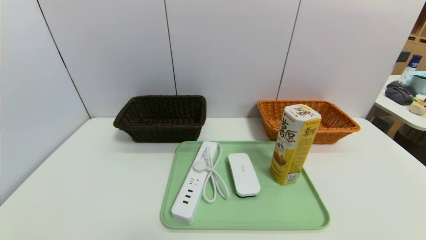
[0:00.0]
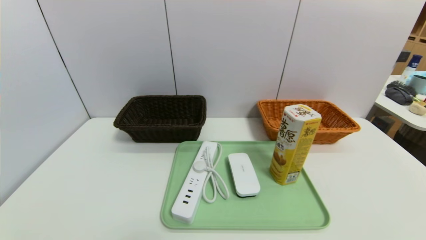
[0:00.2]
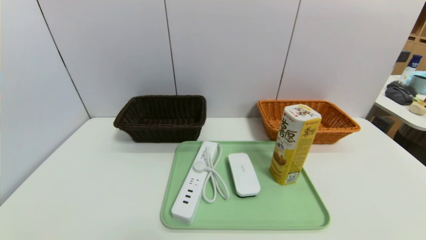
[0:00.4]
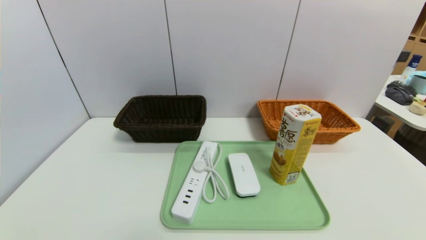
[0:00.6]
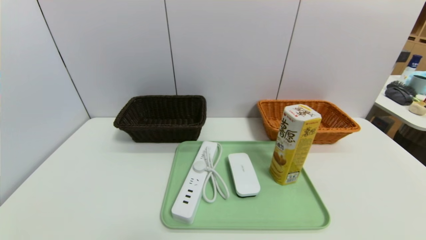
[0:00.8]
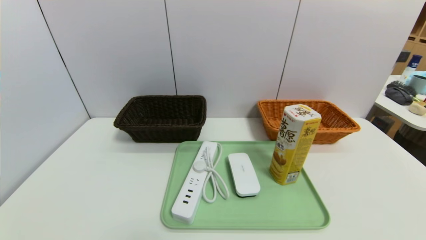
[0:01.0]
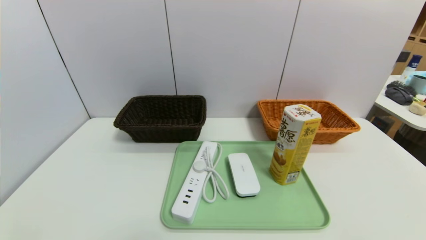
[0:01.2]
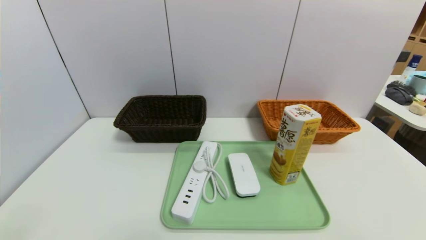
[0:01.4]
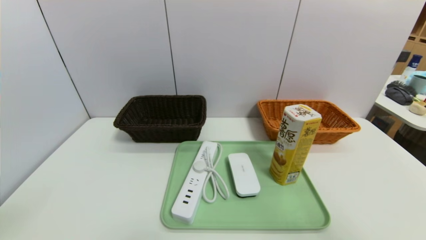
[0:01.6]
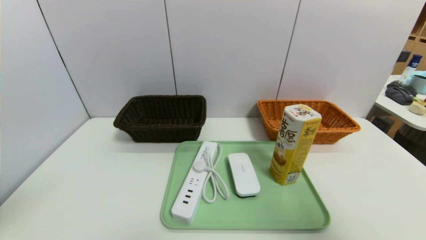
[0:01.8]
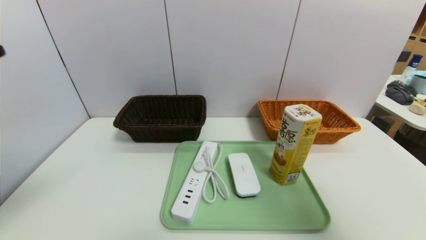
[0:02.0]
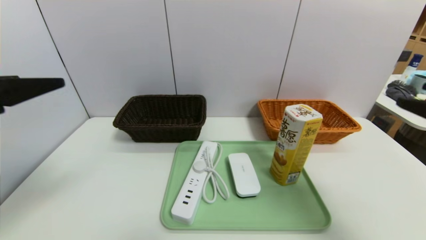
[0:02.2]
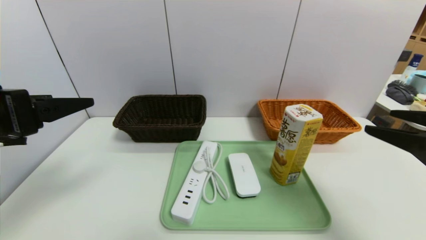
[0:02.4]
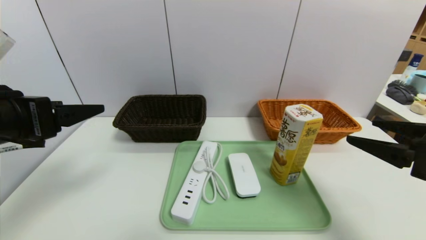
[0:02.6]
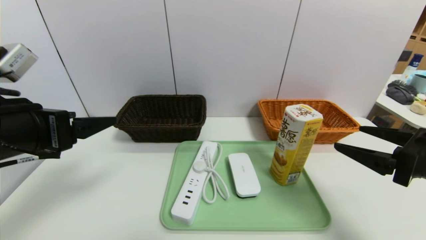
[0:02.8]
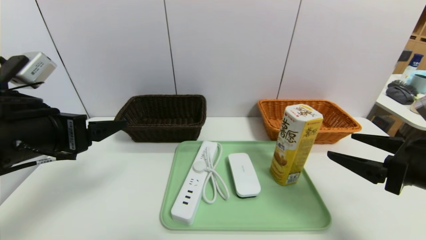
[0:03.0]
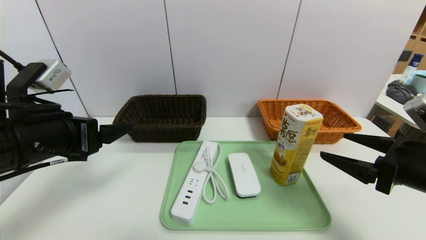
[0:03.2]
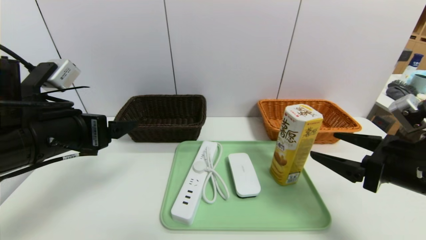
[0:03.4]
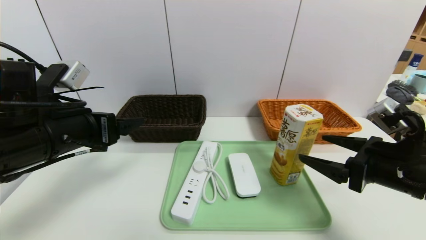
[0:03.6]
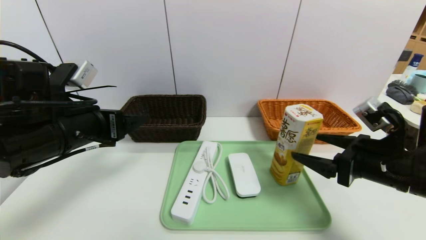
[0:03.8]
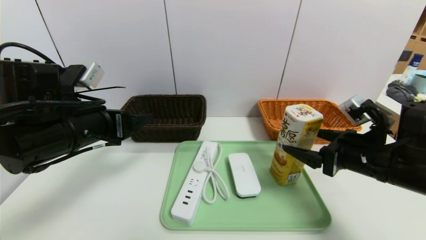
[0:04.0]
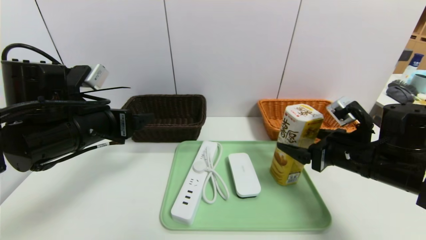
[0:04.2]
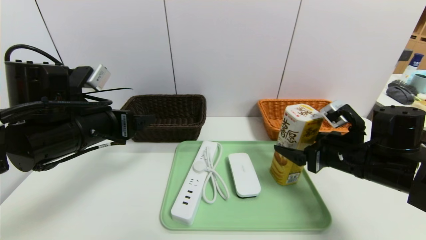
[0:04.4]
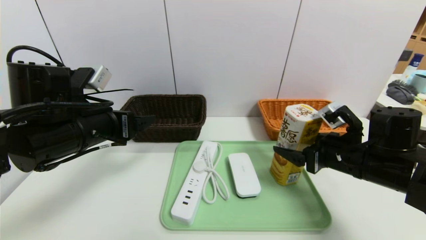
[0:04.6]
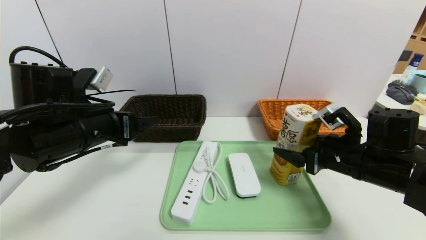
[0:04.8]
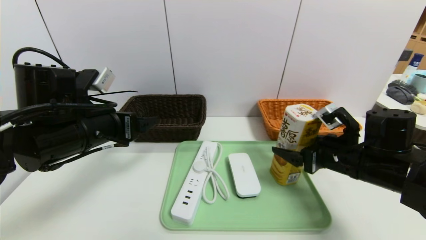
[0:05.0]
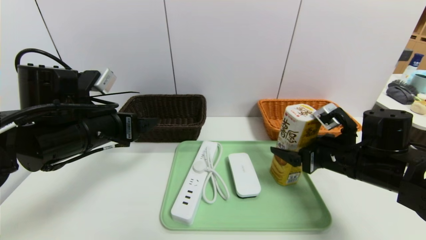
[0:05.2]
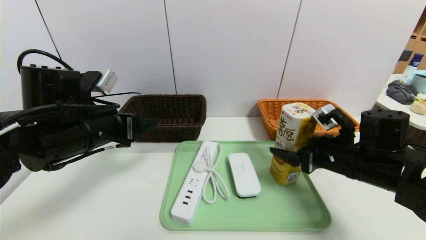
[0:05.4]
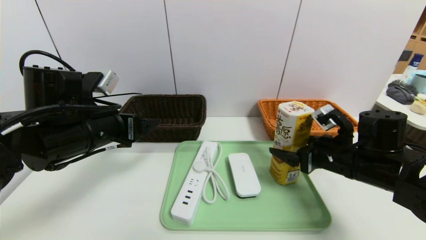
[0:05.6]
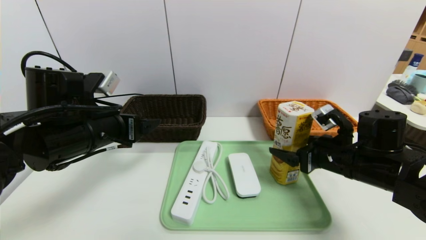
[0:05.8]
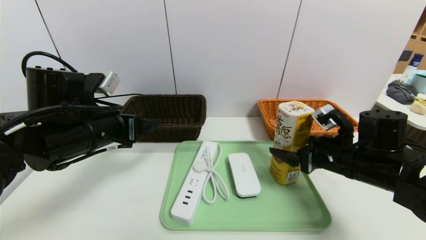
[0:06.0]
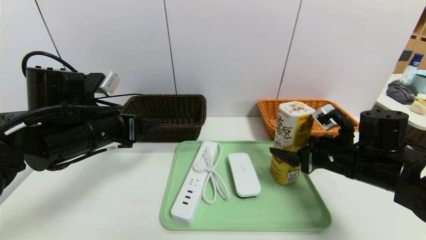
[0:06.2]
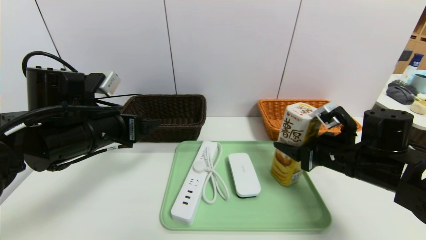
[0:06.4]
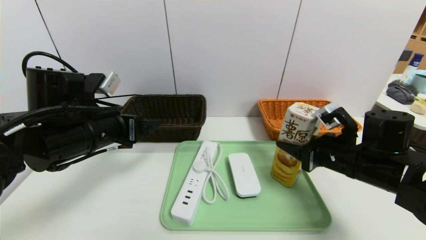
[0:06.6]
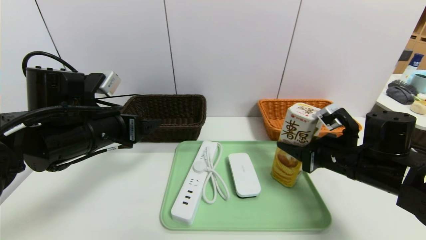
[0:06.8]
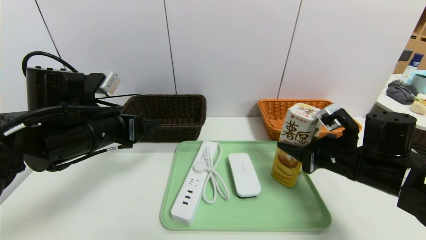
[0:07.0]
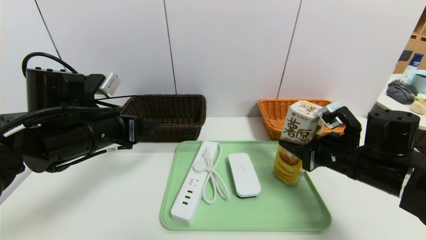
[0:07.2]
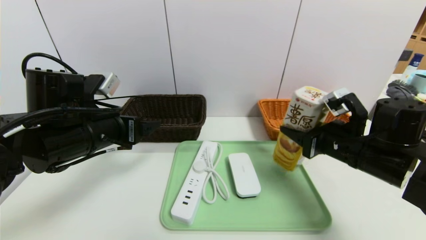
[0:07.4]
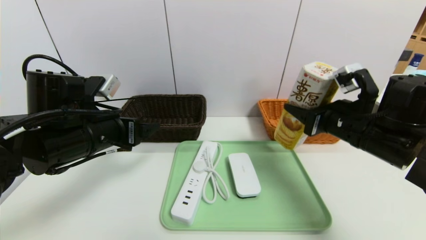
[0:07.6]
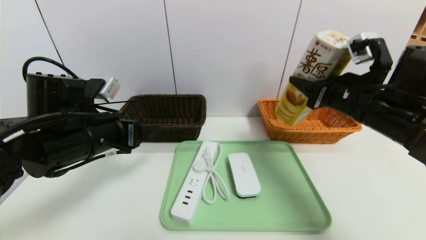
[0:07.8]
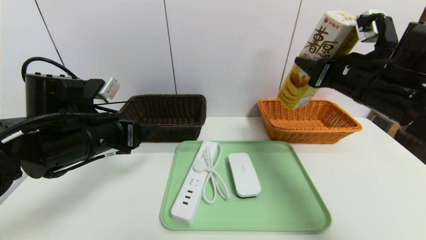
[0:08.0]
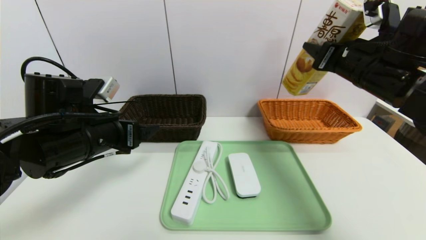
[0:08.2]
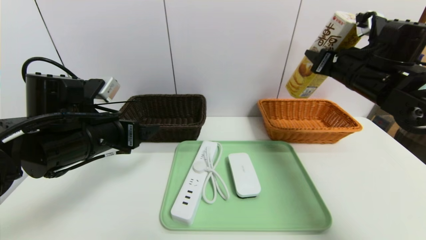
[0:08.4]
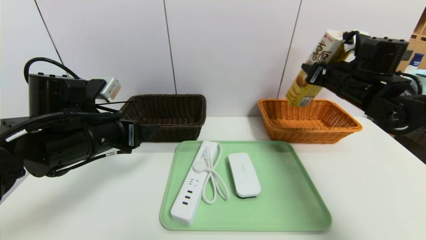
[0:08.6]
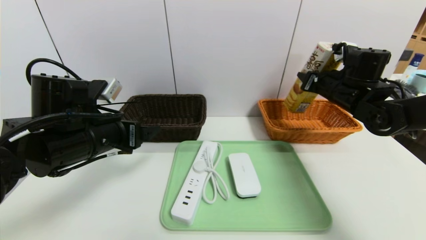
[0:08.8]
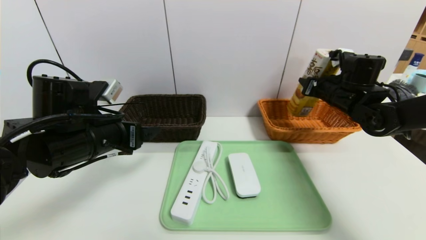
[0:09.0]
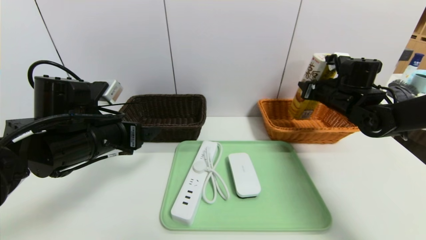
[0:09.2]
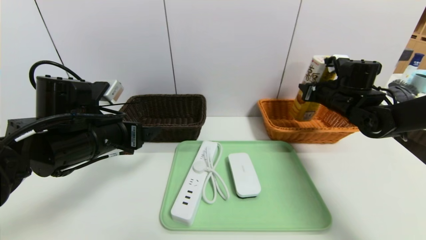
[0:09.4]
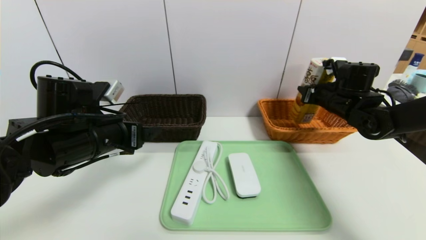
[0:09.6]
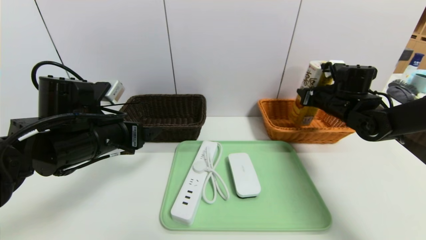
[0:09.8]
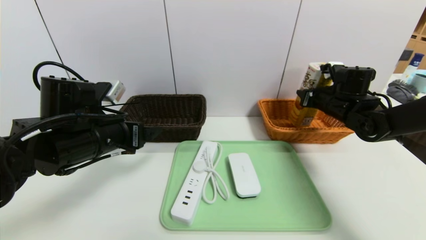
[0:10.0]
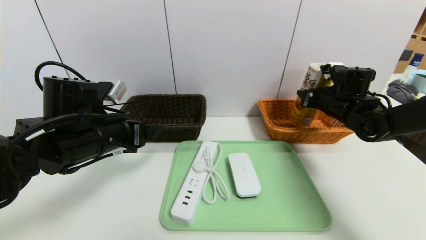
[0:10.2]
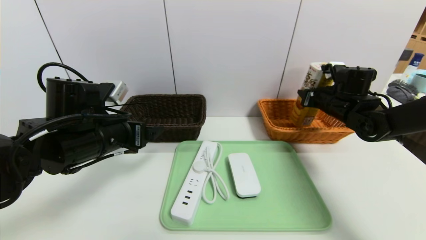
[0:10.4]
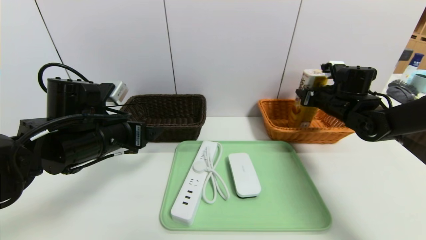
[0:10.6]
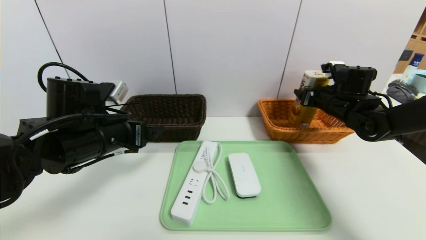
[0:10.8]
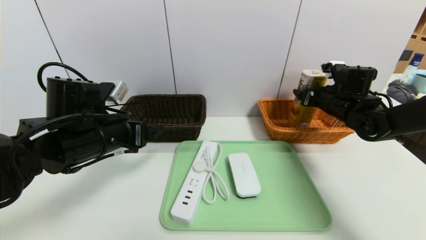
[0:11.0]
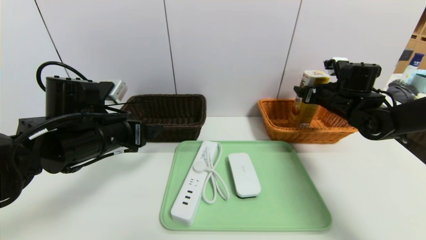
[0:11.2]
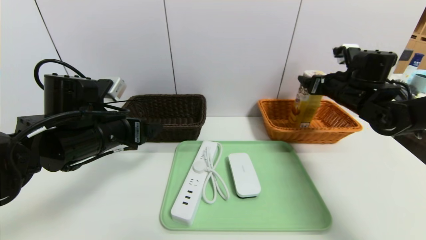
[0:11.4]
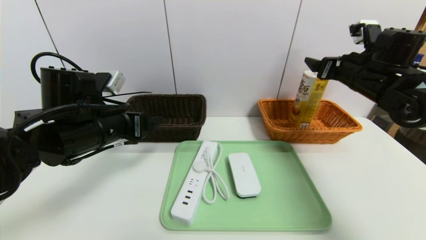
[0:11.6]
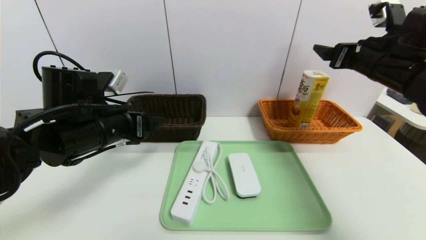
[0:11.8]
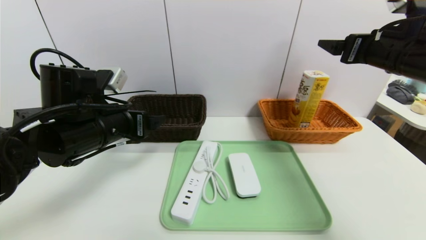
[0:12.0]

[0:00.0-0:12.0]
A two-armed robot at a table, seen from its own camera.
Task of the whole recording: place the food in the right basket with the right gripper, and place the non food items in the left basket with the left gripper.
Step, 0:00.0 to 0:11.2: Grasp the potato chips and put it in the right basket.
0:01.6 to 0:03.0: The grippers both shift forward and downward by about 20 cm.
0:03.0 to 0:04.4: The right gripper heads forward and to the left, covering about 10 cm; the left gripper moves forward, approximately 5 cm.
0:04.4 to 0:06.0: The grippers move only a little.
0:06.0 to 0:07.6: The right gripper heads upward, covering about 5 cm, and closes up.
0:07.6 to 0:09.0: The right gripper travels forward by approximately 15 cm.
0:09.0 to 0:10.4: The grippers move only a little.
0:10.4 to 0:12.0: The right gripper moves upward and backward, some 20 cm, and opens.

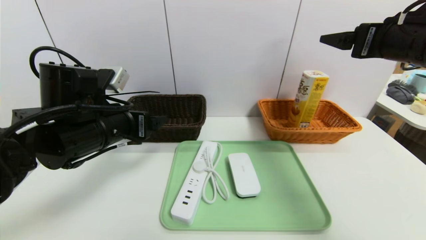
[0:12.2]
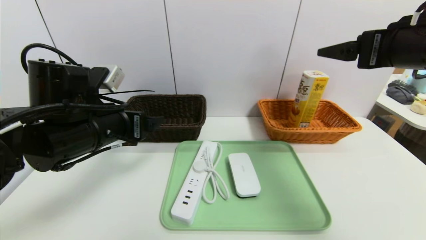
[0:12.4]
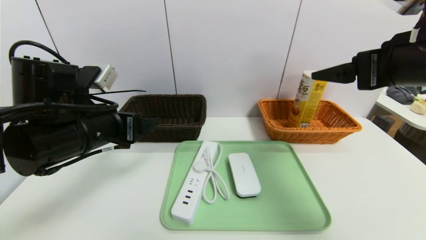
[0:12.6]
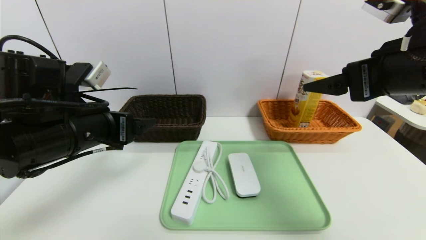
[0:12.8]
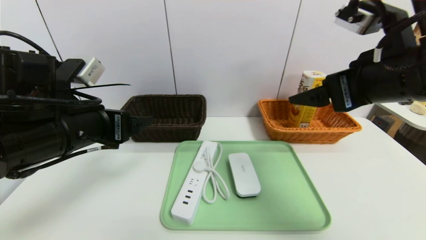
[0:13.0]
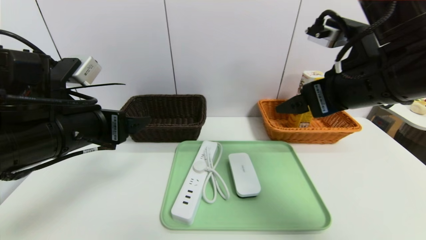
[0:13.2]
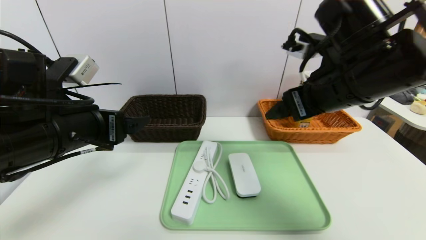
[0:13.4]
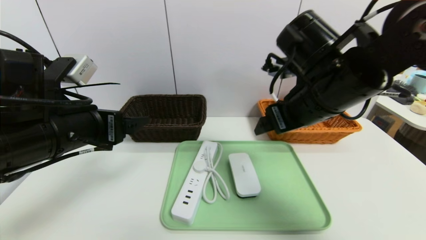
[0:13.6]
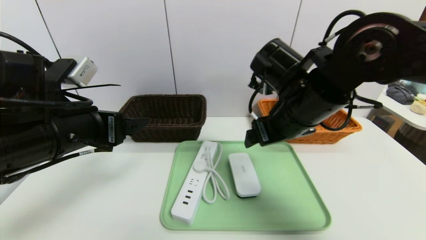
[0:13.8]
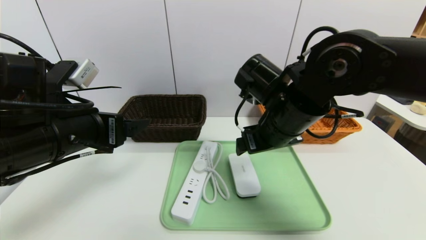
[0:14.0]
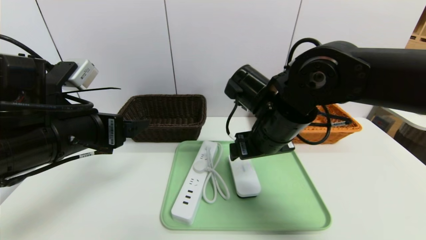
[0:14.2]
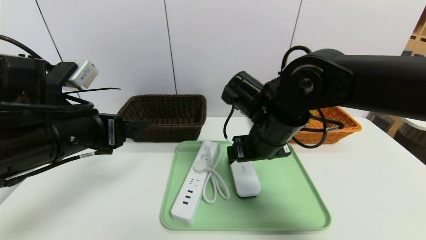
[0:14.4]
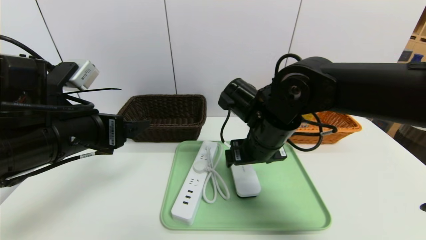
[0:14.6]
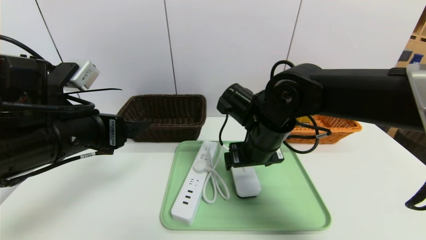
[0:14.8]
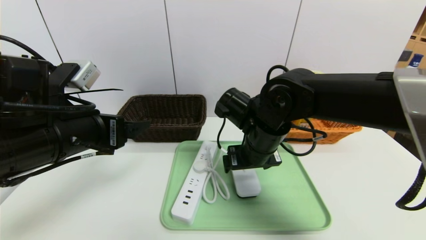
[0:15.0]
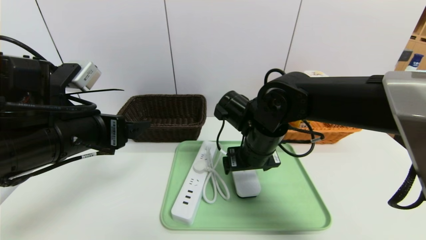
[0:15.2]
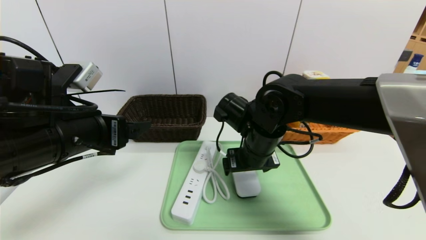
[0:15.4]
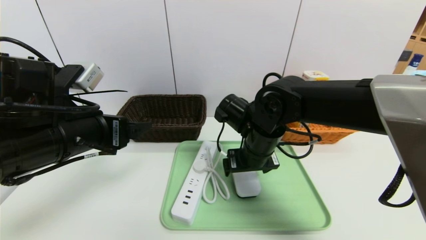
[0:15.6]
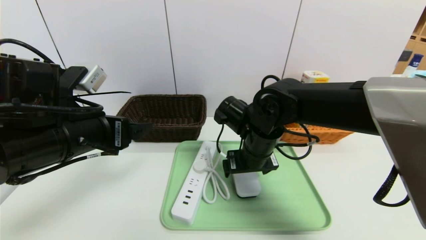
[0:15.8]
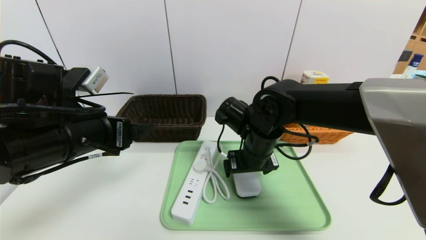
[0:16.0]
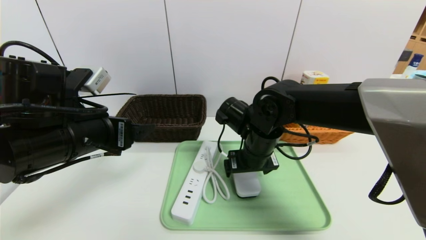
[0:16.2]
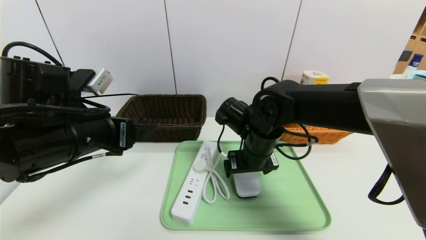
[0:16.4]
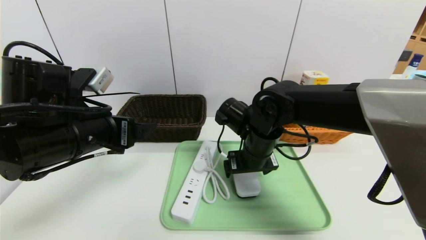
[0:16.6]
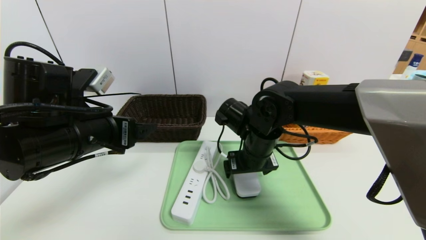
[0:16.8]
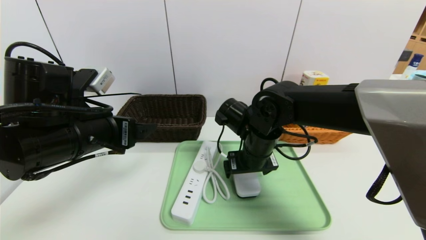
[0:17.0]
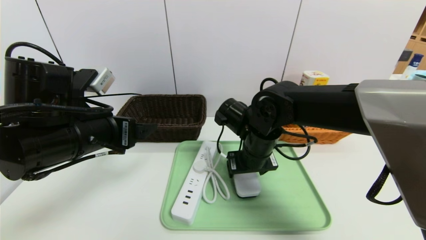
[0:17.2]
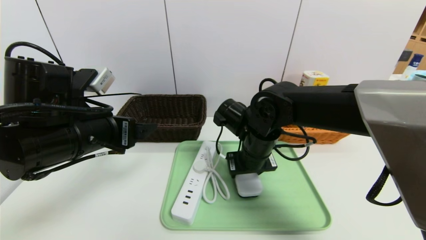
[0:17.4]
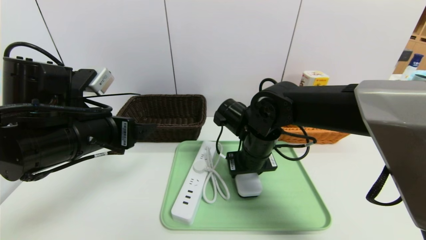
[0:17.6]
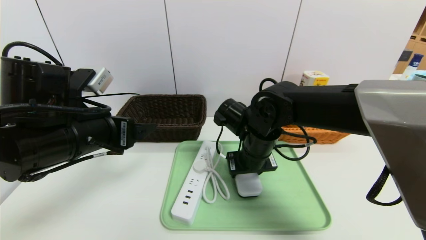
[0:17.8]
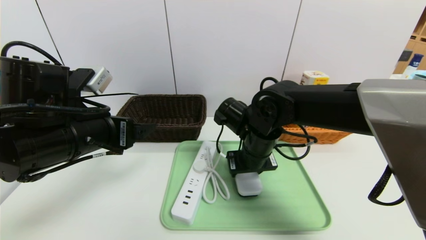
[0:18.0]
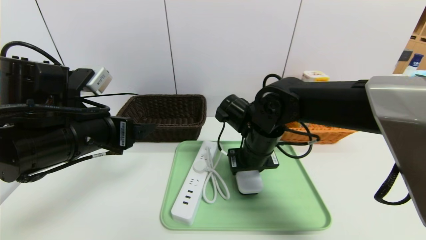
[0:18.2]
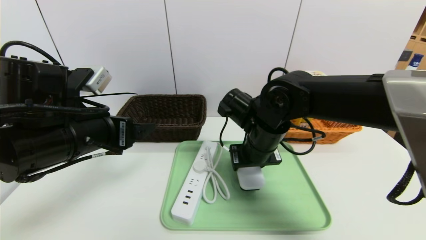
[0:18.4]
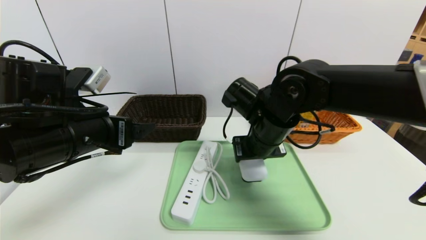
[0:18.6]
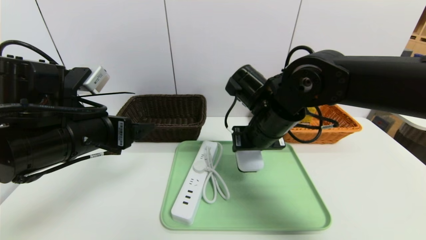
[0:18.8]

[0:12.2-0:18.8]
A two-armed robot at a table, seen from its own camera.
Task of the whole recording: place the food in the right basket with the right gripper, and place the non food items in the left basket with the left gripper.
0:12.2 to 0:13.8: The left gripper changes place by roughly 5 cm, while the right gripper goes some 15 cm to the left and downward.
0:13.8 to 0:15.4: The right gripper goes roughly 10 cm downward.
0:15.4 to 0:17.2: The right gripper closes its fingers.
0:17.2 to 0:18.8: The right gripper moves upward, approximately 5 cm, and closes its fingers.
